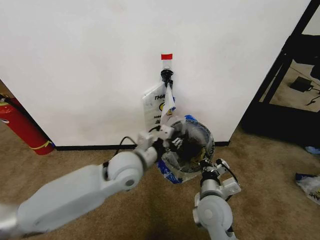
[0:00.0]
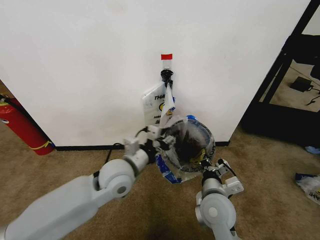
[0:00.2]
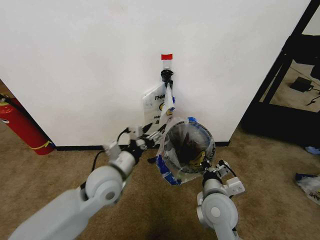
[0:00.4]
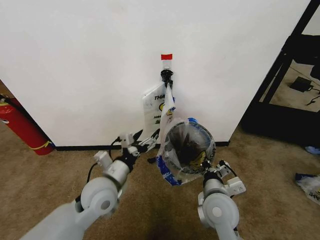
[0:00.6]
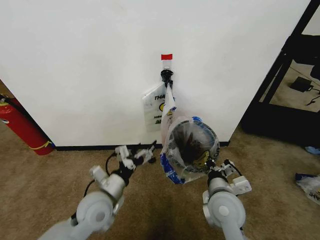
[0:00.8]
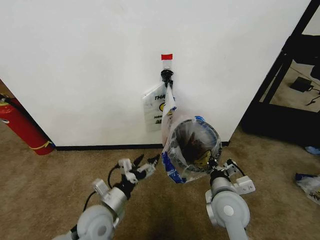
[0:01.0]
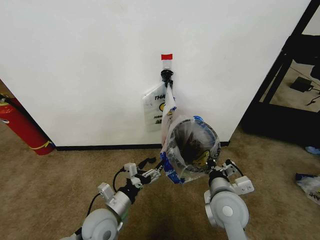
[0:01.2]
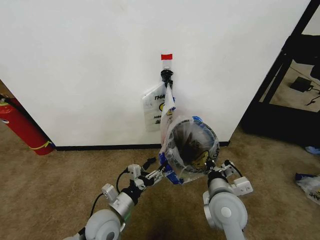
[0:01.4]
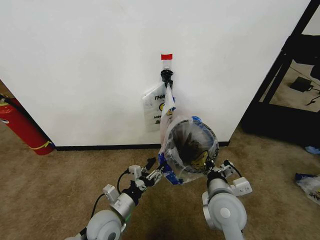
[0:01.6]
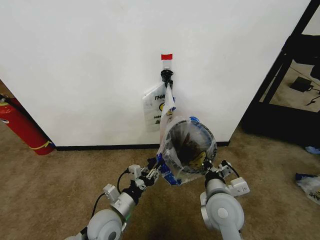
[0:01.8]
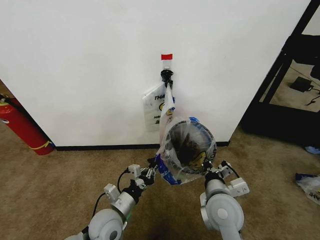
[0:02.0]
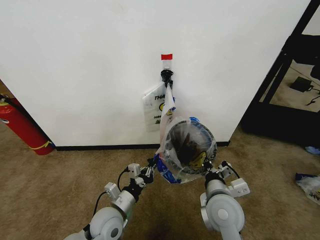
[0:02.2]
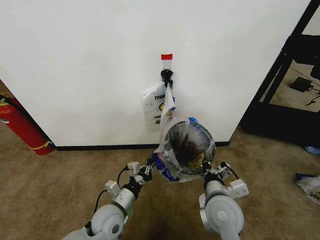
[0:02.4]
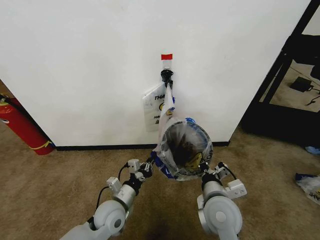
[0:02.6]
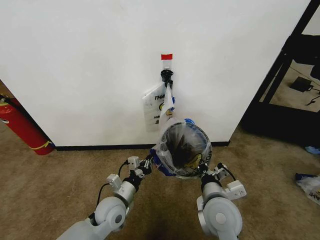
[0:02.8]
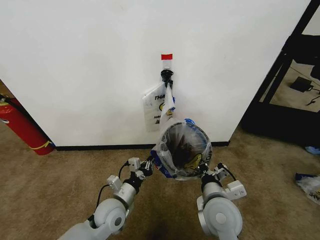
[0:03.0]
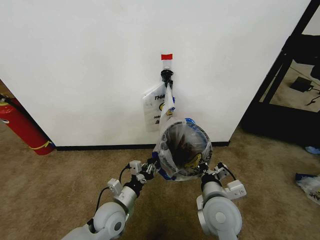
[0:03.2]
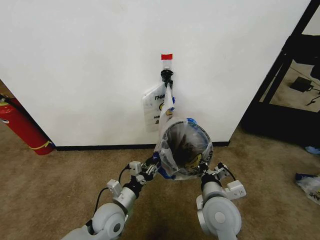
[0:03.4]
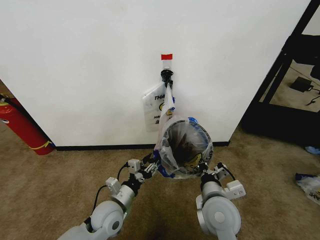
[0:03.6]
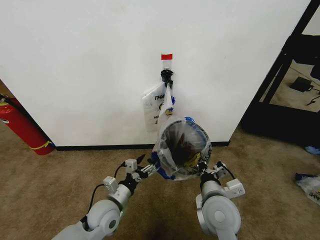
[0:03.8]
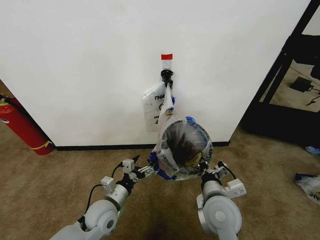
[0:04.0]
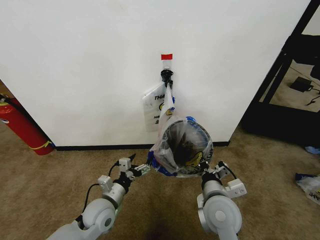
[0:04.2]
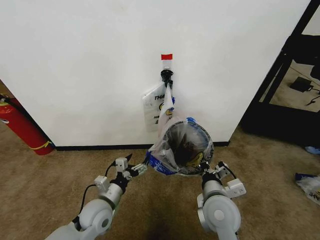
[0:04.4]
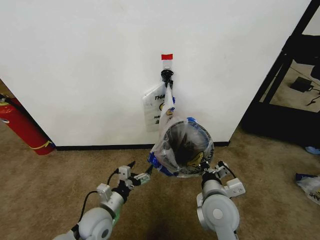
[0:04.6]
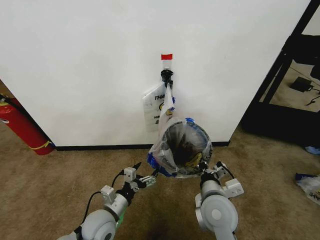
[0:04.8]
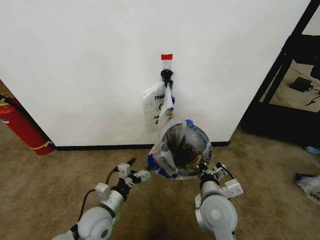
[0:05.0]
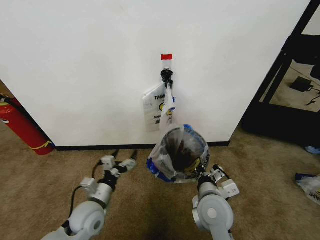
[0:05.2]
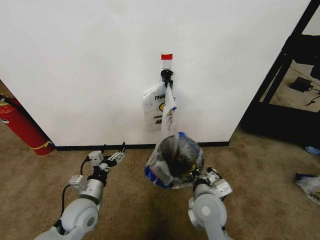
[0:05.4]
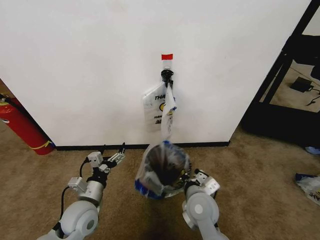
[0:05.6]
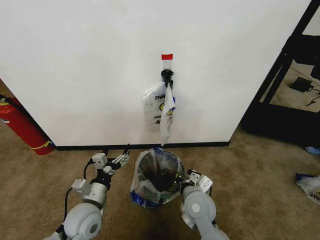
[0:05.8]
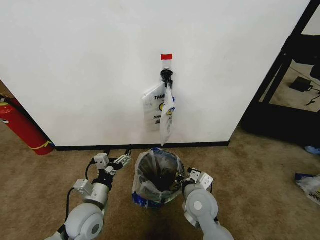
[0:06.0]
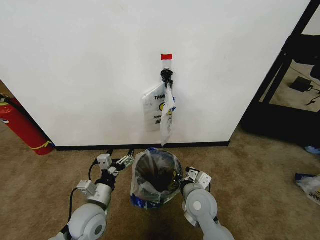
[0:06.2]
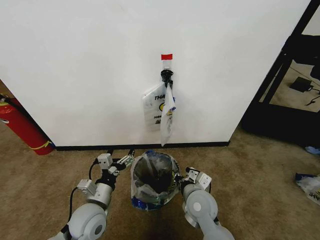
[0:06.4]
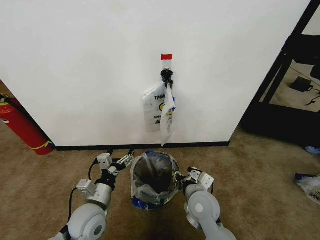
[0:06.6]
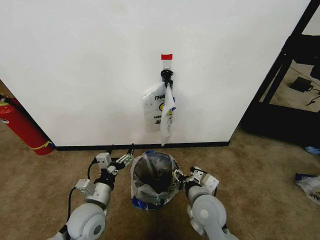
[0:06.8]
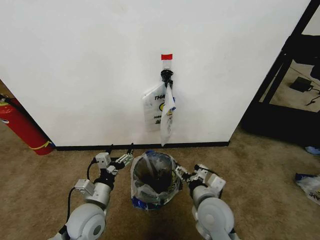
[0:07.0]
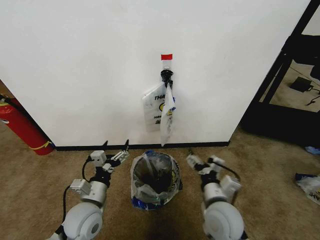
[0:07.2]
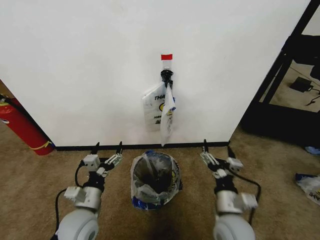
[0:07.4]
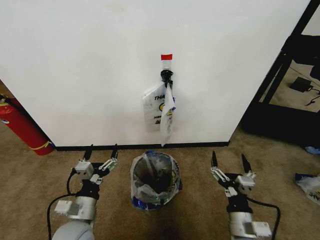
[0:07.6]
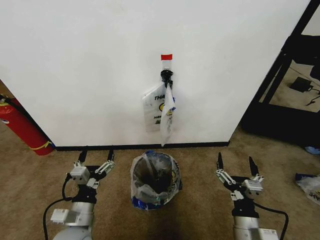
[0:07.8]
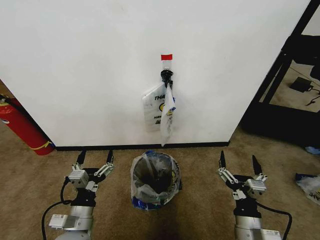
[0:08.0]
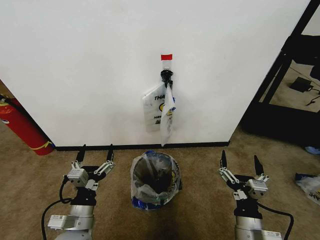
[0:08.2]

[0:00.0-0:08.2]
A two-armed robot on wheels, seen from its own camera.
Task of the whole recording: Pick up the garbage bag from the wall and place it over the trash bin.
0.0 to 1.6 s: The left gripper heads downward, backward and to the left, covering about 20 cm, and opens, then closes once more.
1.6 to 3.2 s: The left gripper closes.
3.2 to 5.0 s: The left gripper opens.
5.0 to 6.6 s: The right gripper changes place by about 5 cm, and opens.
6.6 to 8.2 s: The left gripper is displaced backward by some 5 cm. Meanwhile the right gripper heads backward and to the right, covering about 15 cm, and opens up.

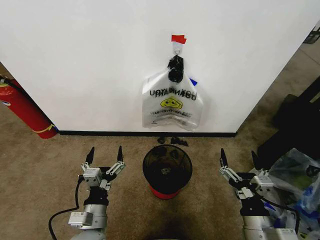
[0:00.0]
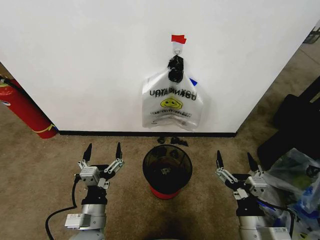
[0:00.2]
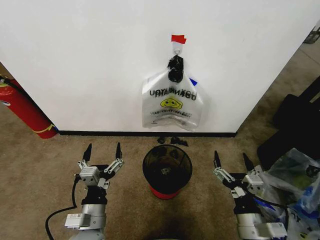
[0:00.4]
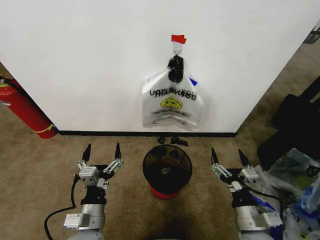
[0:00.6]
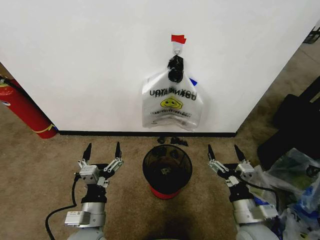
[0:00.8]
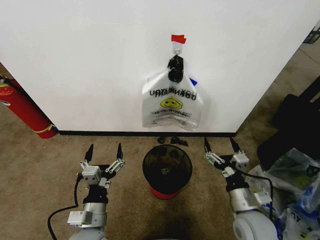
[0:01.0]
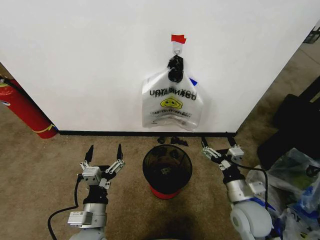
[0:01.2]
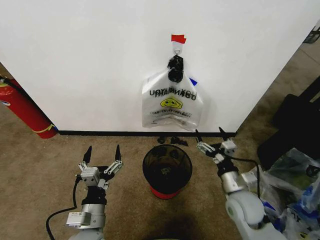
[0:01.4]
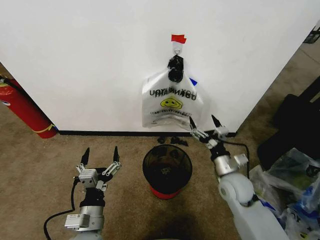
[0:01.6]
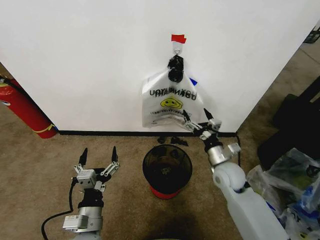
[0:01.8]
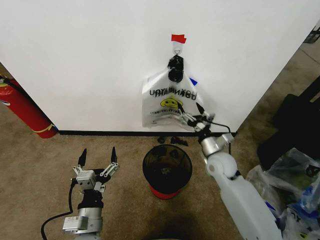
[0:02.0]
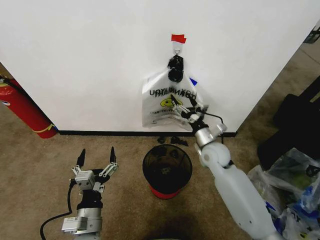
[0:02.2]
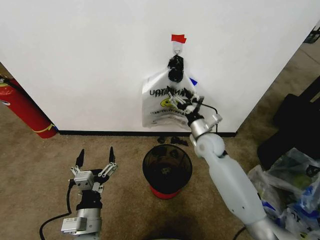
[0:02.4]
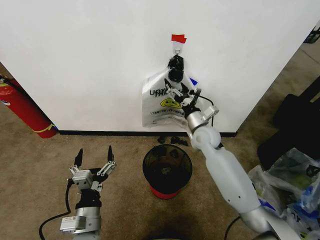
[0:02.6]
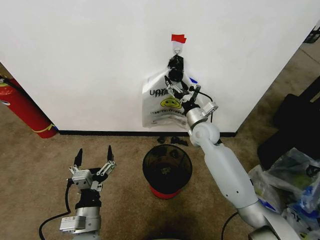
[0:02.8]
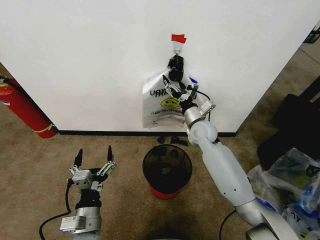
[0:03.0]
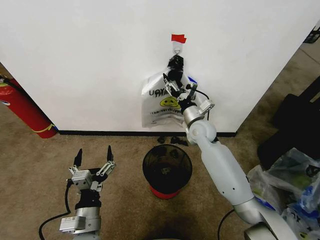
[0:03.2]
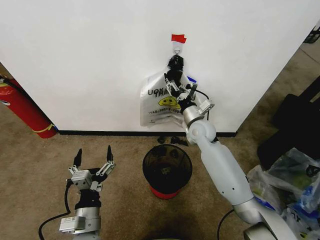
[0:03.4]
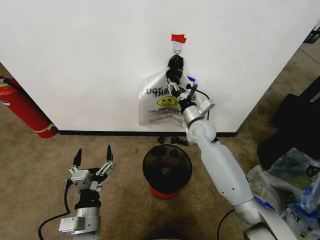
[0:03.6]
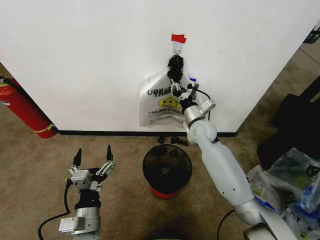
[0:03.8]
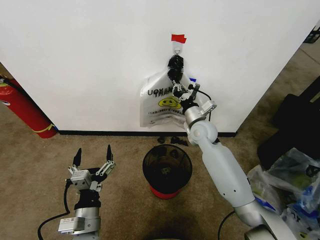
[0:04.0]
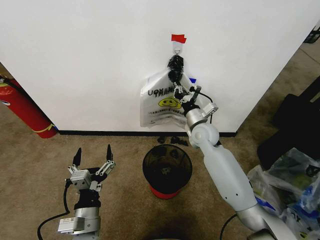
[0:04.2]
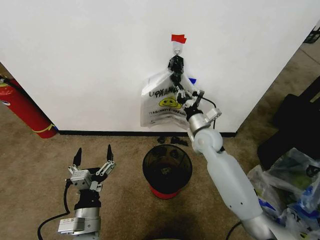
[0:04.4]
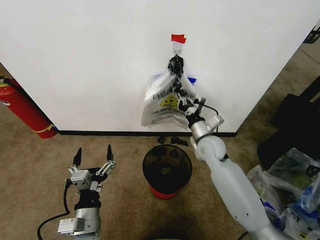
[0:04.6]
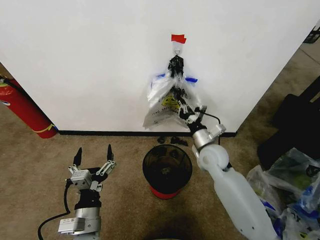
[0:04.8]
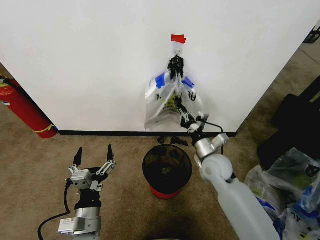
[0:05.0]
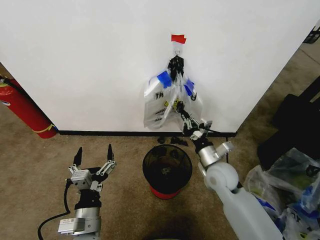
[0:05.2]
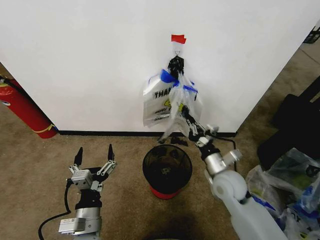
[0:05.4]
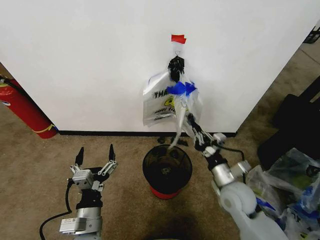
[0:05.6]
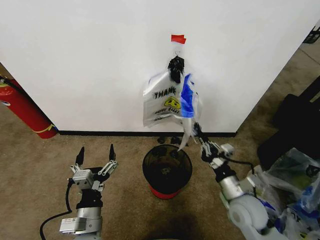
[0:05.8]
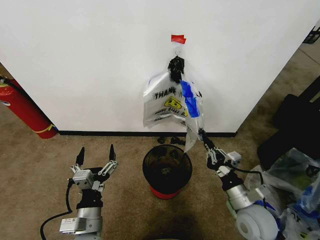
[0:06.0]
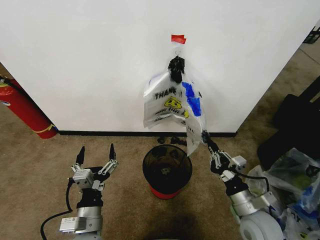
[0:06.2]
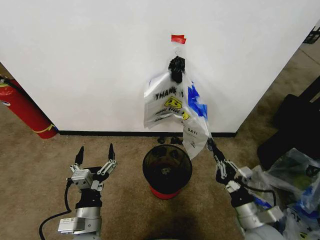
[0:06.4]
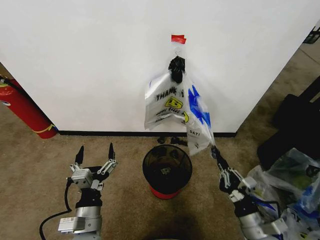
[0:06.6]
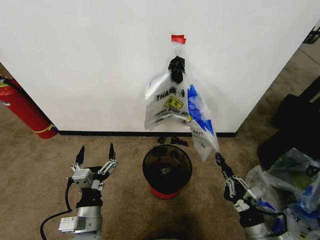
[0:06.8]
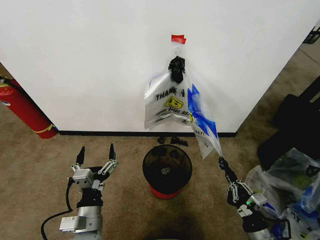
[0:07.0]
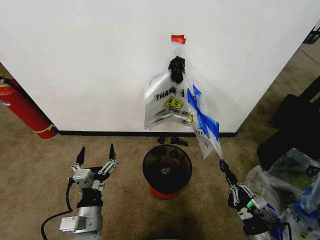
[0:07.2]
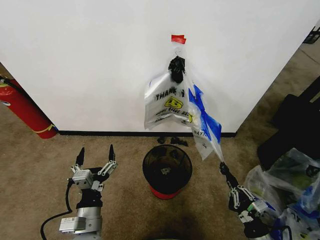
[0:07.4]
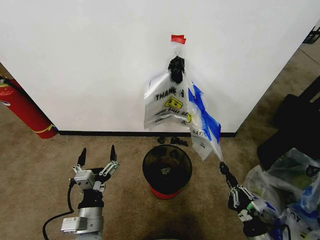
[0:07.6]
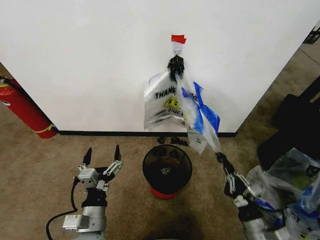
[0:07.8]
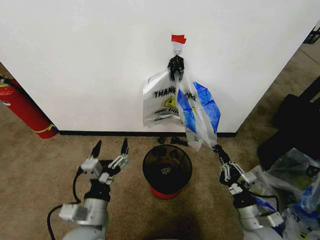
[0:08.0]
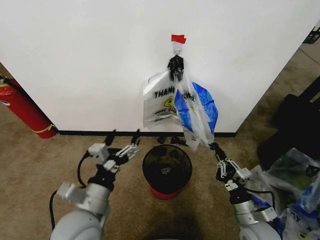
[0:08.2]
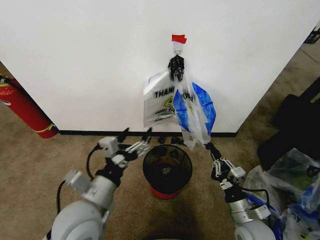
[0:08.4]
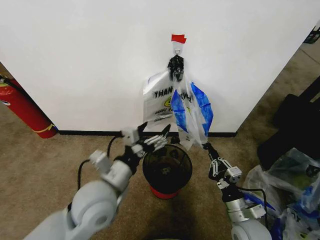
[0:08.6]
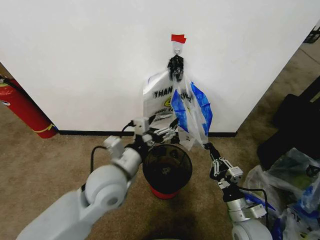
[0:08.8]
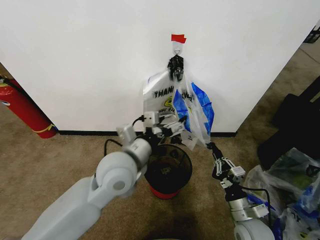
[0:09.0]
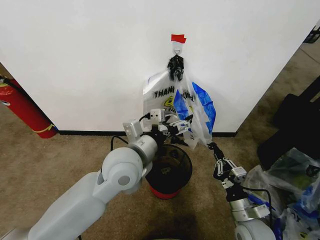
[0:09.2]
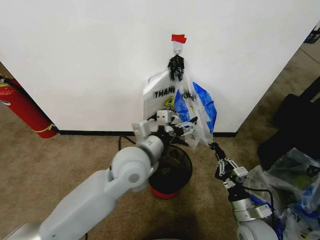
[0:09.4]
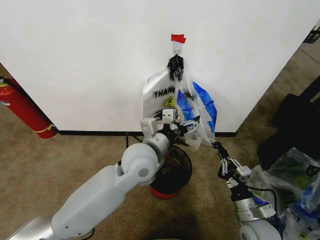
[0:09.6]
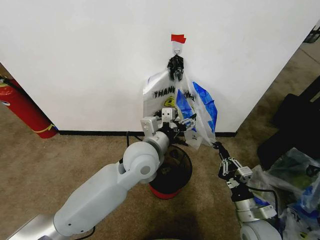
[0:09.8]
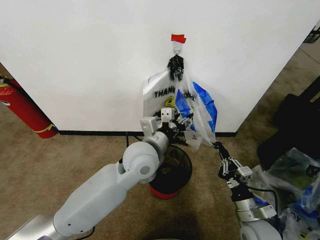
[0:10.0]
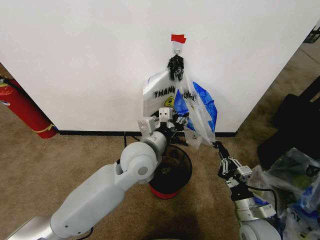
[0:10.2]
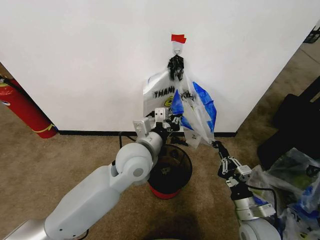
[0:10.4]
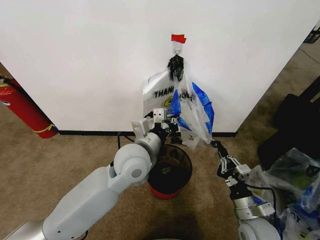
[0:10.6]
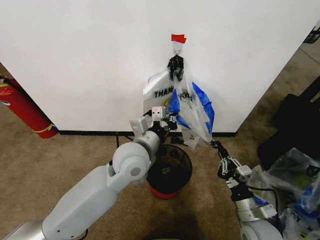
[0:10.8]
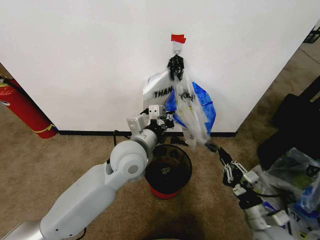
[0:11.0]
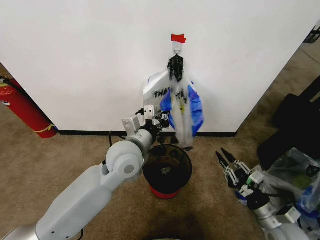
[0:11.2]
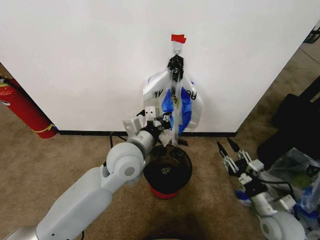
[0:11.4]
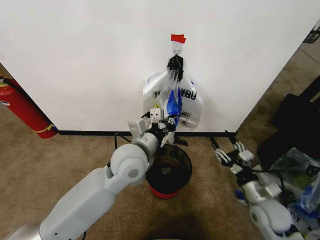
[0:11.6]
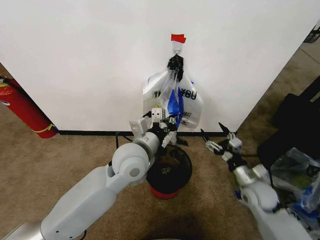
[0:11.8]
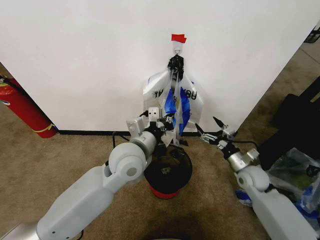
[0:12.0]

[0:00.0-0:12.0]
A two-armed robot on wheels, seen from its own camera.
Task of the whole recording: Pick up the garbage bag from the wall and place it over the trash bin.
1.6 to 3.0 s: The right gripper travels forward, upward and to the left by some 20 cm.
3.0 to 4.4 s: The right gripper closes up.
4.4 to 6.0 s: The right gripper moves backward, approximately 25 cm.
6.0 to 7.6 s: The right gripper shifts some 15 cm backward, downward and to the right.
7.6 to 9.0 s: The right gripper heads forward, covering approximately 10 cm. The left gripper travels upward, forward and to the right by about 25 cm.
9.0 to 10.4 s: The left gripper closes up.
10.4 to 12.0 s: The right gripper is displaced forward by roughly 15 cm, and opens up.

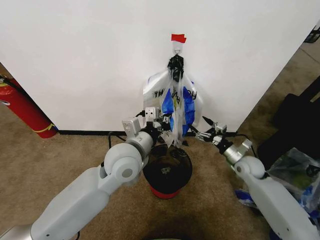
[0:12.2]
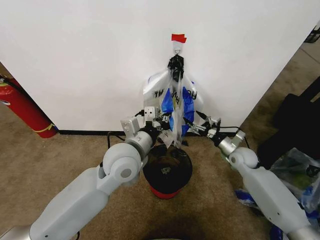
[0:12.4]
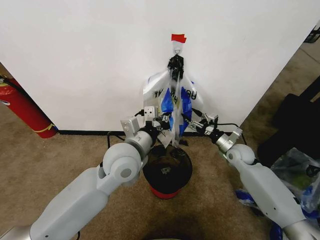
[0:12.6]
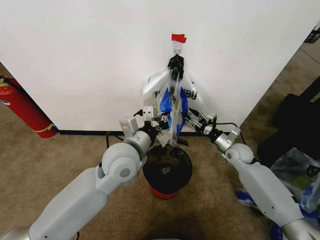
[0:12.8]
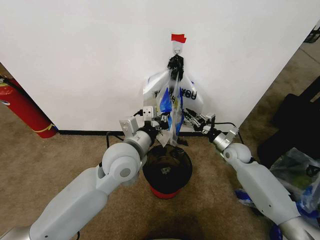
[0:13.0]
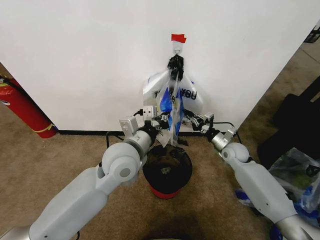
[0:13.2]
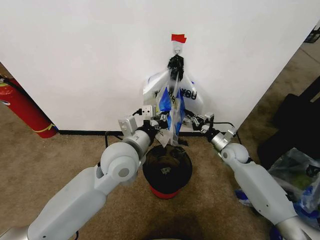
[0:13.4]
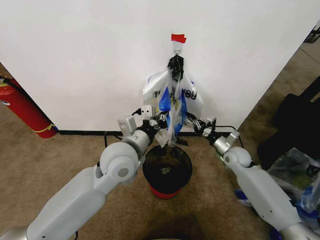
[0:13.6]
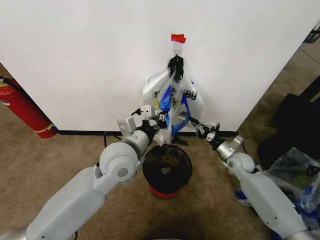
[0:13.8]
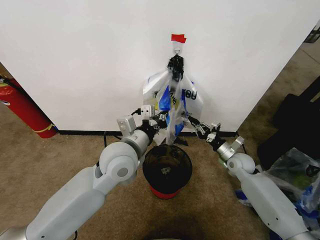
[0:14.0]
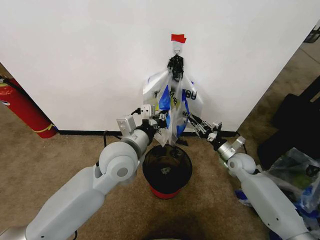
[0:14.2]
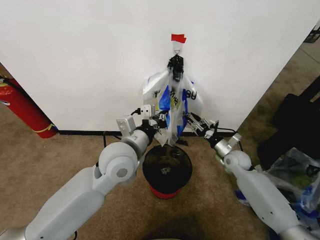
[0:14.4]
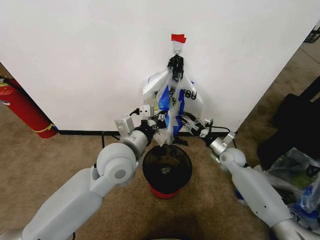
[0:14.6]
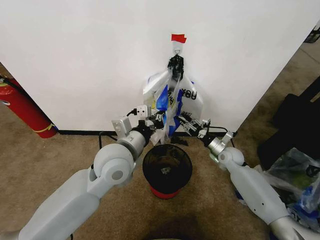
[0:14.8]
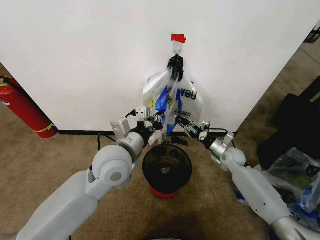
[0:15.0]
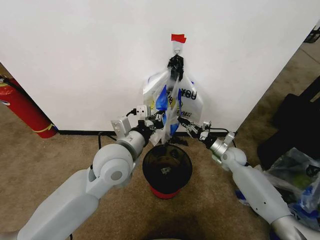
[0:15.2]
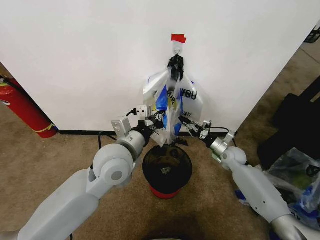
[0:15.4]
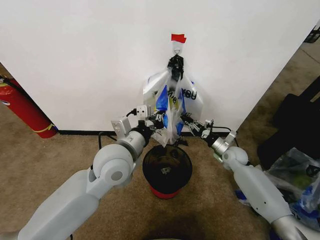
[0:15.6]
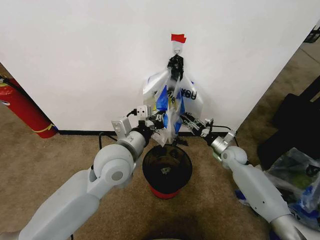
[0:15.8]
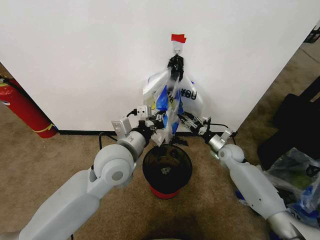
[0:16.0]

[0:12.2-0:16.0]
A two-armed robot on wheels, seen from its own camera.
Task of the whole recording: Pick up the garbage bag from the wall and place it over the trash bin.
12.2 to 13.4 s: The right gripper goes some 5 cm forward, and closes.
13.4 to 14.8 s: The right gripper opens.
14.8 to 16.0 s: The grippers move only a little.
